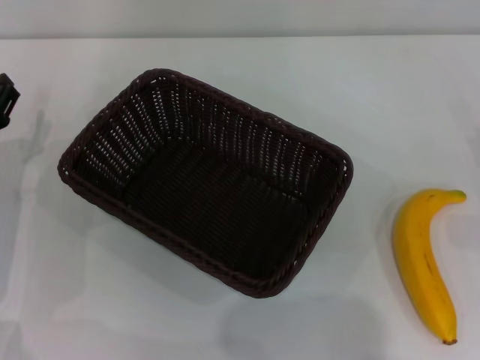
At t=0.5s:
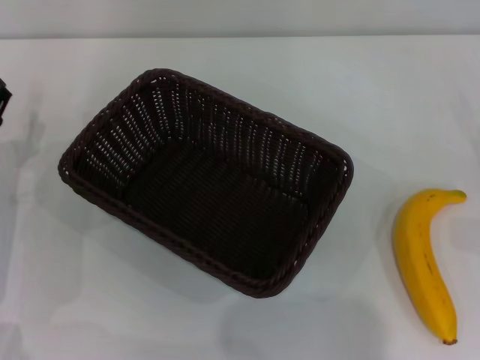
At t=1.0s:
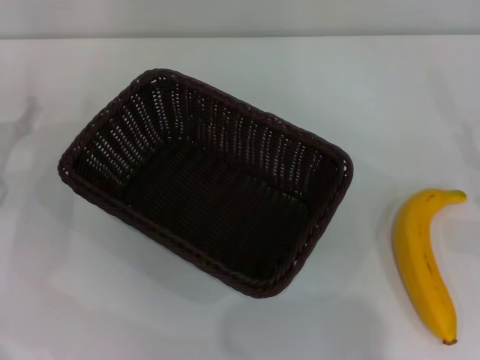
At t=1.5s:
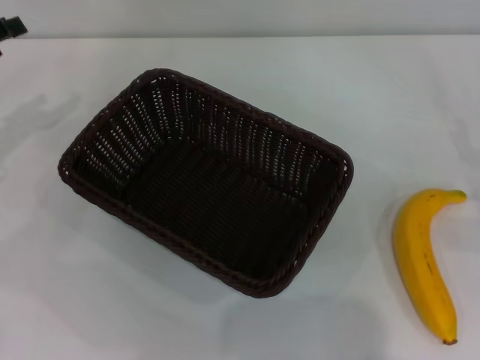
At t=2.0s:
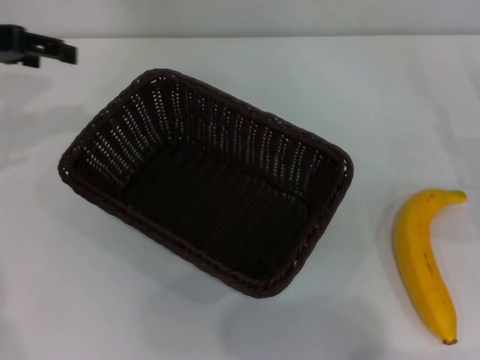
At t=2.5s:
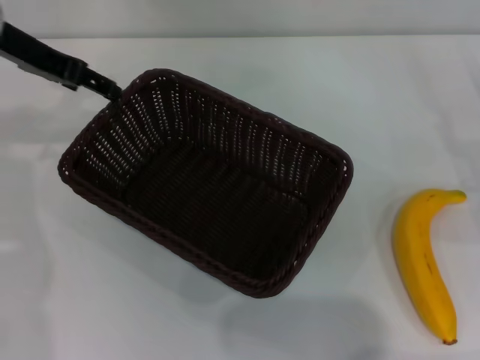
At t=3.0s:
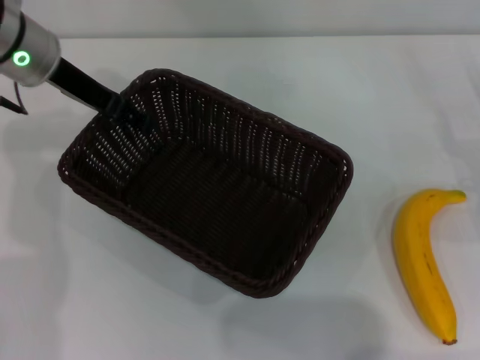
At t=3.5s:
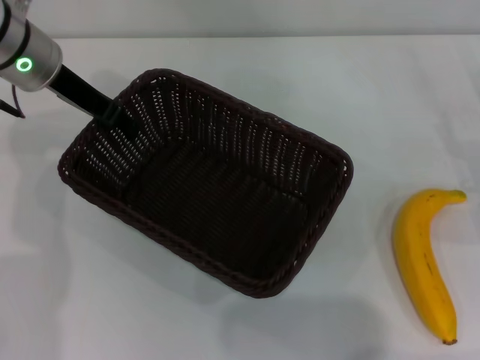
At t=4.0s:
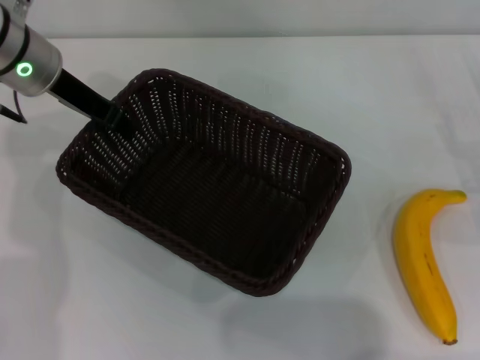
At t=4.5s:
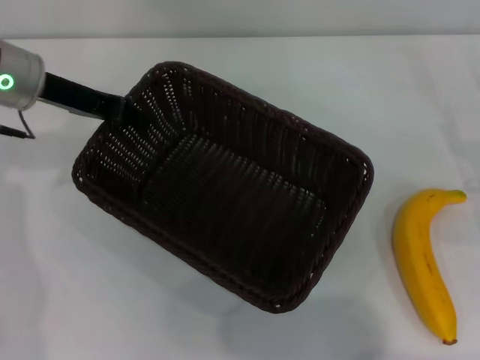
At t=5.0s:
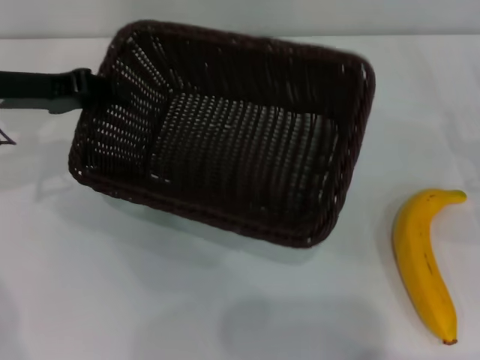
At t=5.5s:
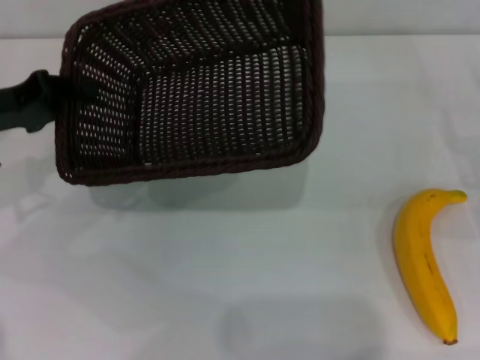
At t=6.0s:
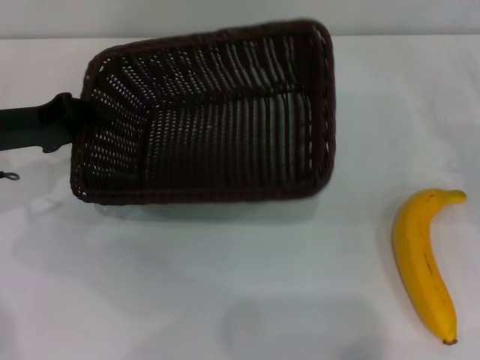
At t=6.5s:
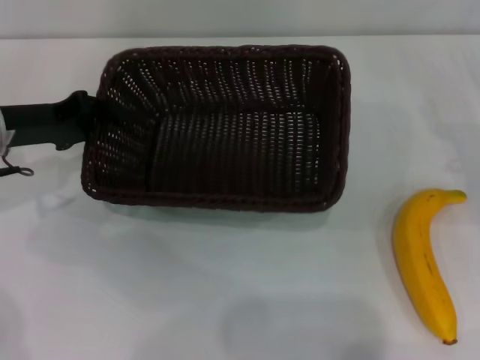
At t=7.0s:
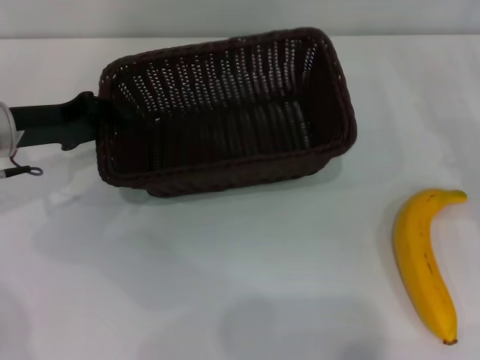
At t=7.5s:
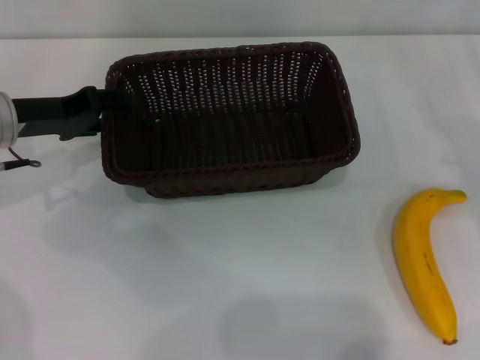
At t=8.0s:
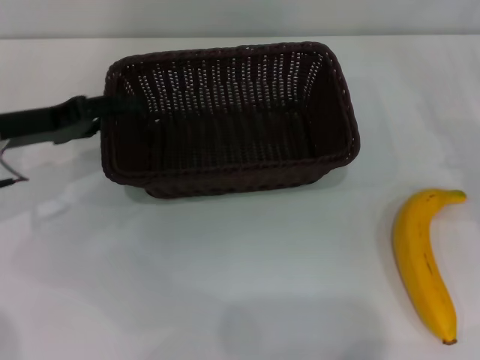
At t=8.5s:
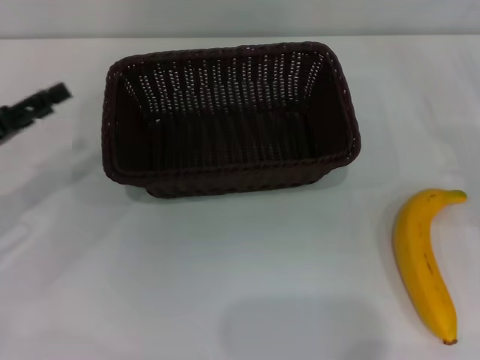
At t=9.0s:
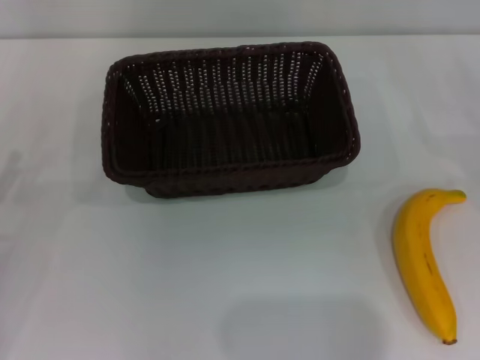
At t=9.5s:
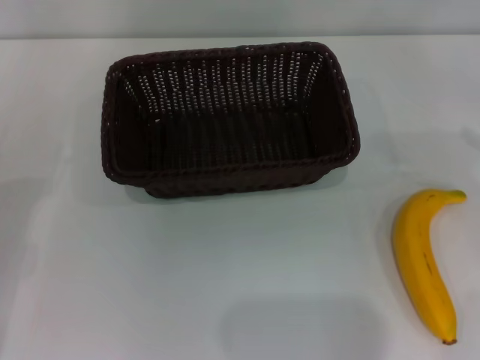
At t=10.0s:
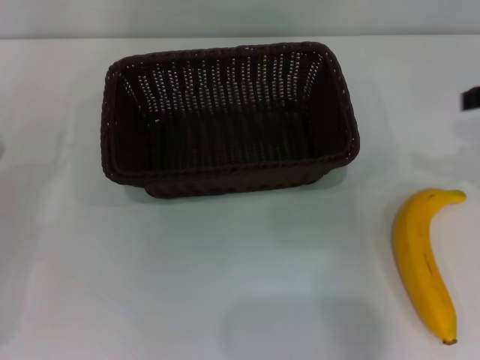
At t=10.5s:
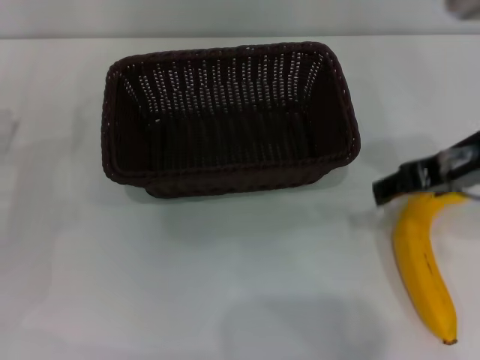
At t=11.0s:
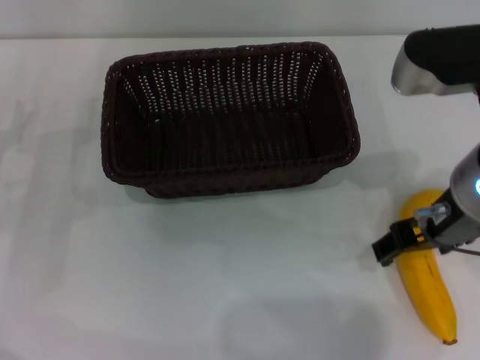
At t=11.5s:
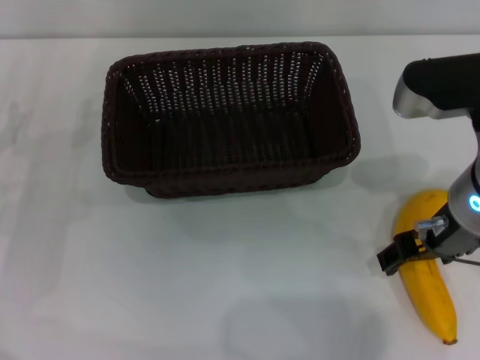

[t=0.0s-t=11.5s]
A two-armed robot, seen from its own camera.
Step, t=0.0s to t=4.5s: Pick up the dark basket with the left gripper.
Step, t=5.0s to t=7.5s: Place the dark basket in the center of view with the left gripper.
t=0.0s to t=2.0s: The left gripper goes roughly 20 cm upward and forward.
t=2.0s to t=4.0s: The left gripper travels to the right and downward by roughly 10 cm, and closes.
t=4.0s to t=6.0s: The left gripper is displaced to the left, downward and backward by about 15 cm.
t=6.0s to t=7.5s: The left gripper opens its fingers.
t=7.5s to t=9.5s: The left gripper goes some 20 cm backward, to the left and downward, and opens.
t=9.5s to t=11.5s: The right gripper travels to the left by some 25 cm.

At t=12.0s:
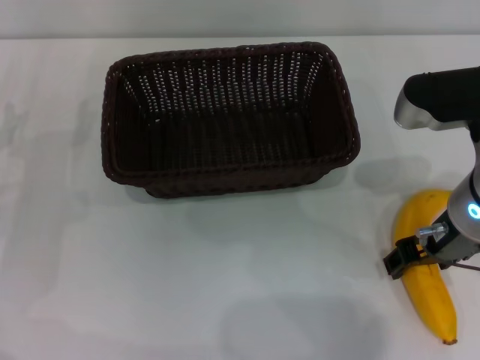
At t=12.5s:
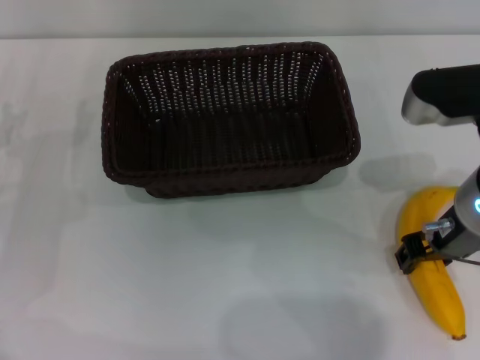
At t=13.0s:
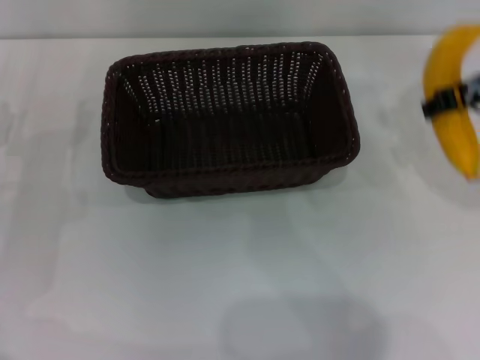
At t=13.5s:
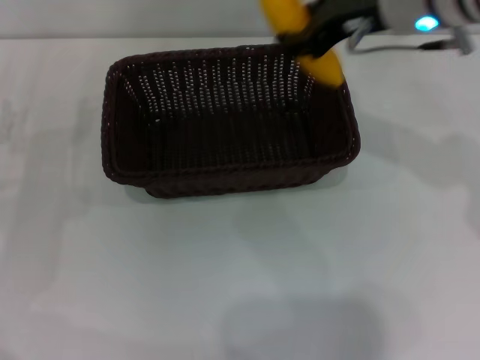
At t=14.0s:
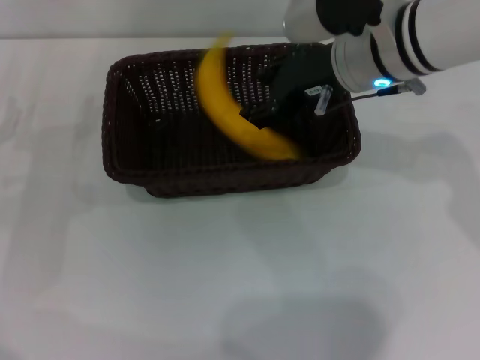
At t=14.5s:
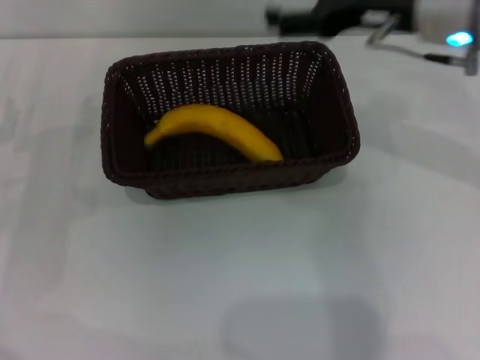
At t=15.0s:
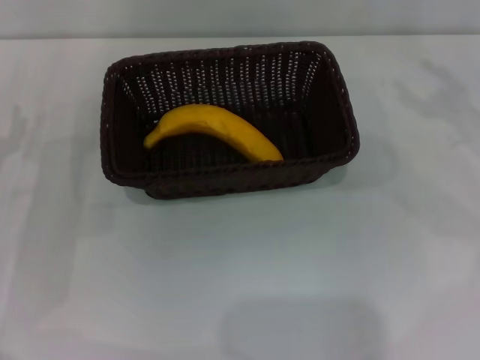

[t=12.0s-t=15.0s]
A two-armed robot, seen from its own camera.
Step, t=13.0s to t=14.0s: Place the banana into the dark basket with the right gripper.
t=12.0s to t=13.5s: The right gripper moves forward and upward, some 15 cm, and closes.
t=13.5s to t=15.0s: The right gripper heads to the right and downward, covering some 20 cm, and opens up.

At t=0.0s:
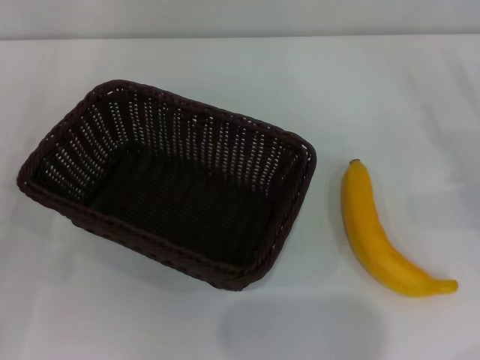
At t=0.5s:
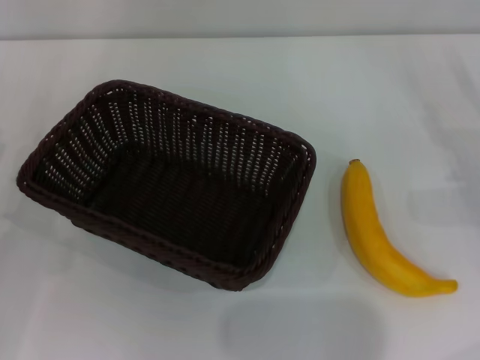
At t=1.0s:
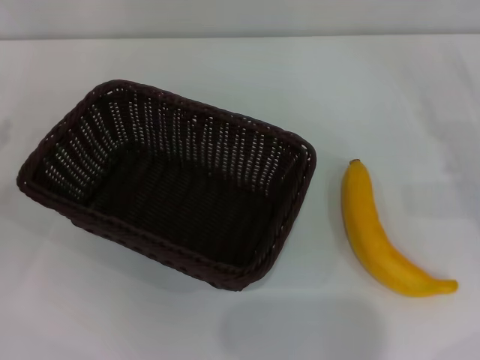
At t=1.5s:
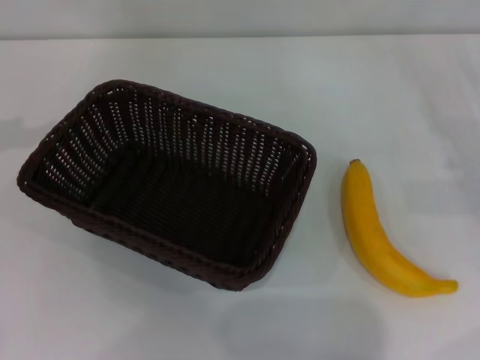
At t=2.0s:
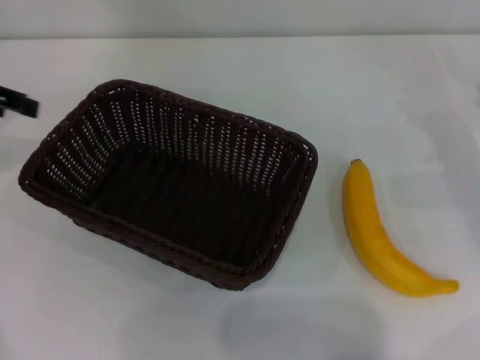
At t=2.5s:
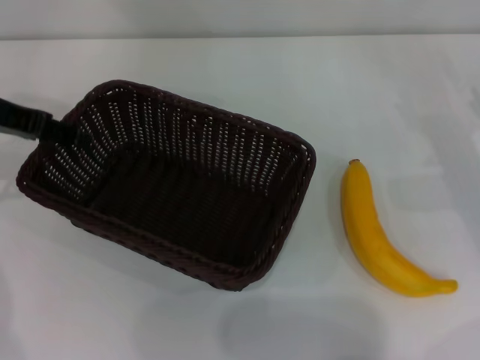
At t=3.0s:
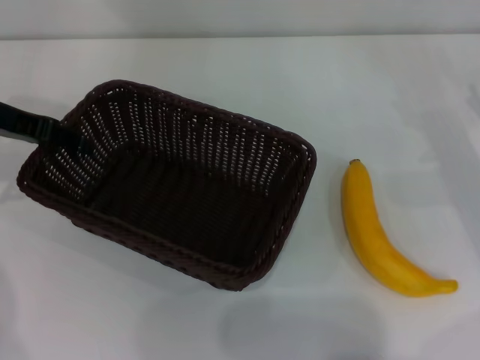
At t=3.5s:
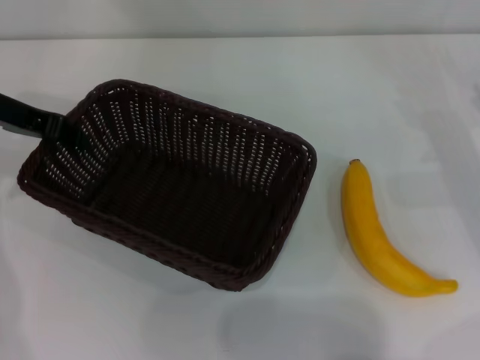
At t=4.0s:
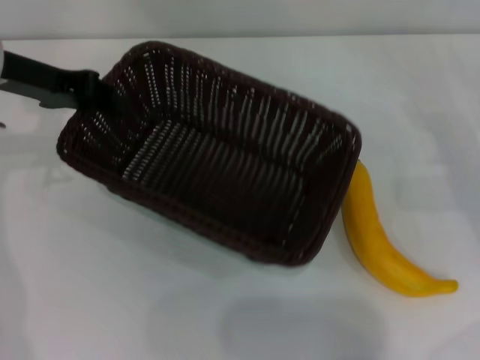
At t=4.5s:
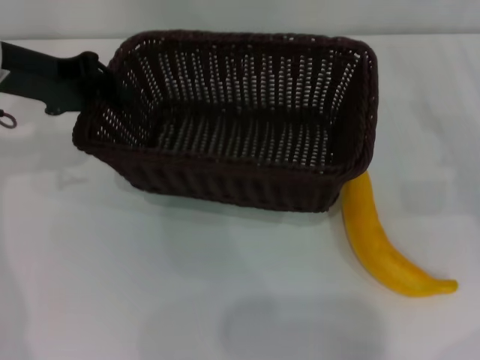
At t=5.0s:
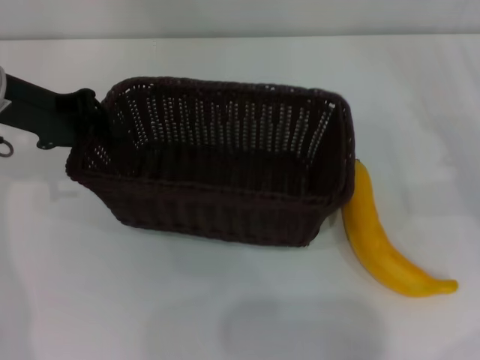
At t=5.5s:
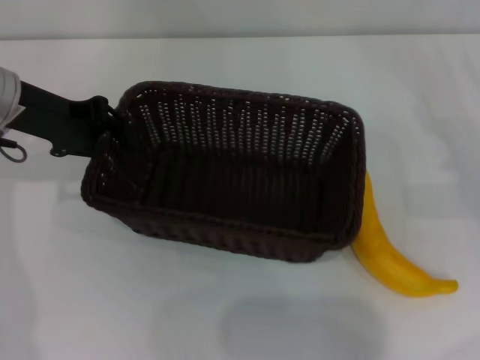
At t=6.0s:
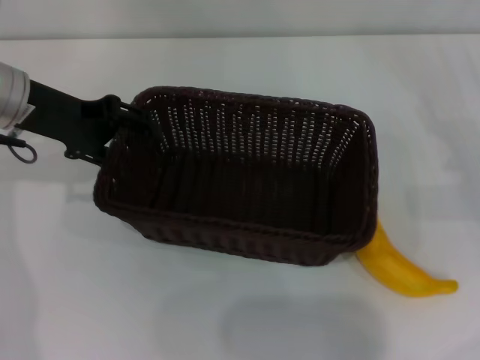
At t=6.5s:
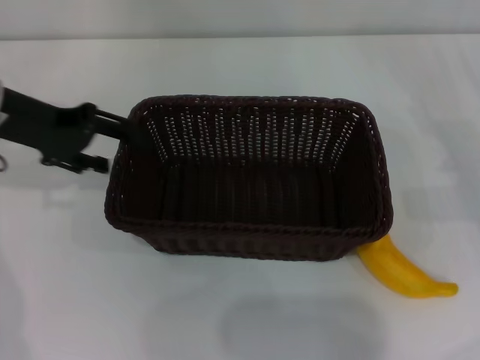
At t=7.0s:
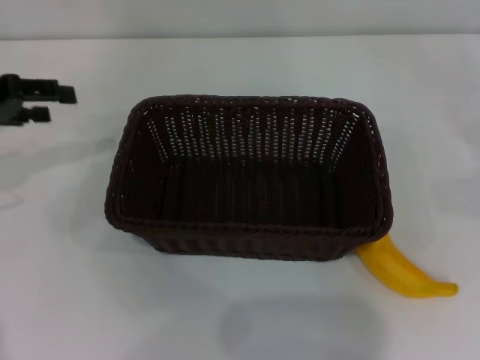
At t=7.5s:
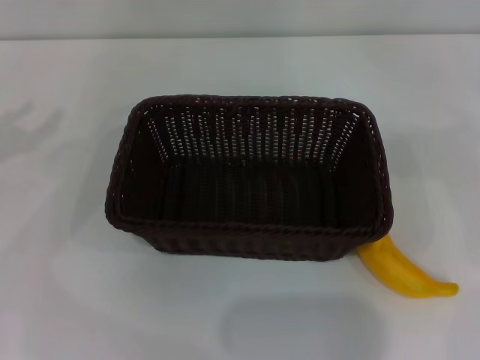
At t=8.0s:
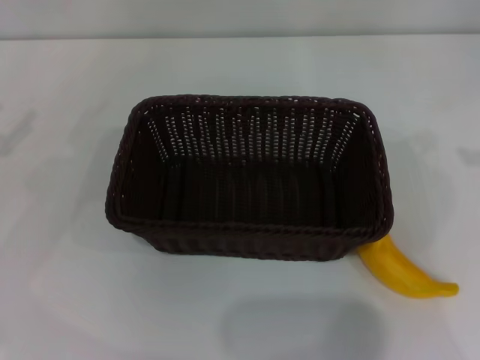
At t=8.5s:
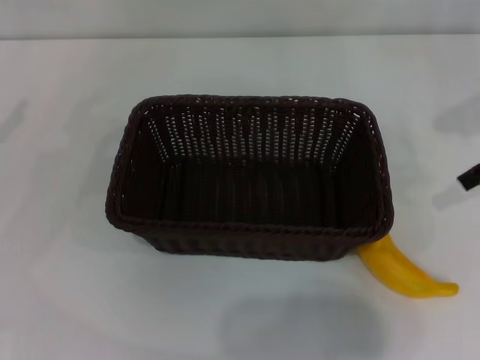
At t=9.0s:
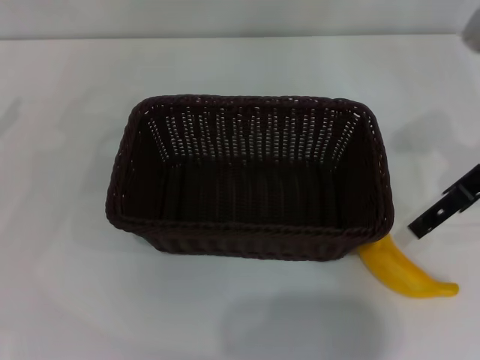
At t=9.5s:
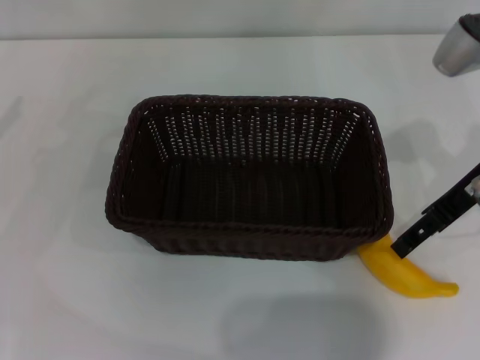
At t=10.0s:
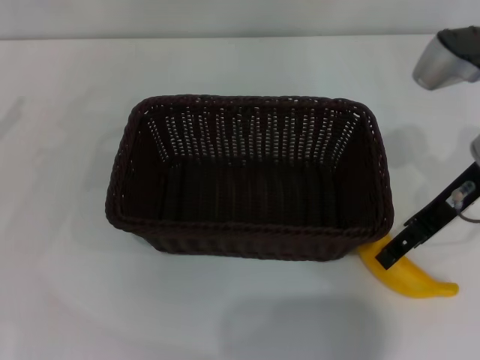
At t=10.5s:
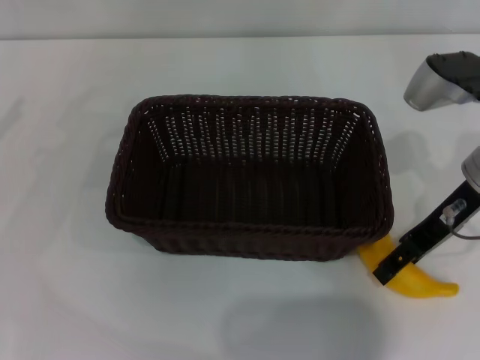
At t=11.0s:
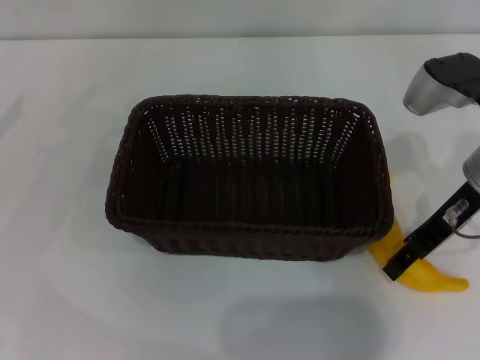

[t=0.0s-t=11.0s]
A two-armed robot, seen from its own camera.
Step, t=0.0s to t=3.5s: Pick up the dark basket with the left gripper.
Step, t=4.0s to t=6.0s: Place the dark basket in the center of view with the left gripper.
t=0.0s to t=2.0s: The left gripper heads upward and forward, covering roughly 20 cm.
t=2.0s to t=3.5s: The left gripper shifts roughly 10 cm downward and to the right, and closes its fingers.
t=5.5s to t=7.5s: The right gripper goes about 15 cm upward and to the right. Meanwhile the left gripper is displaced to the left and backward by approximately 15 cm, and opens its fingers.
t=7.5s to t=9.0s: The right gripper goes some 20 cm to the left.
t=9.0s to t=11.0s: The right gripper heads downward, covering about 5 cm, and closes.
